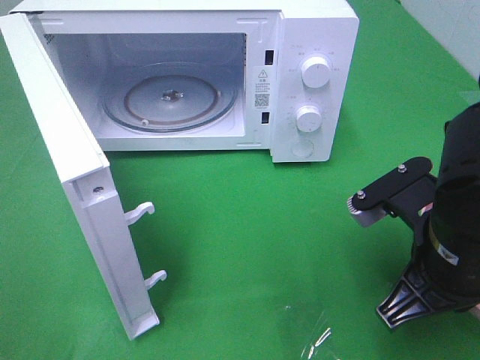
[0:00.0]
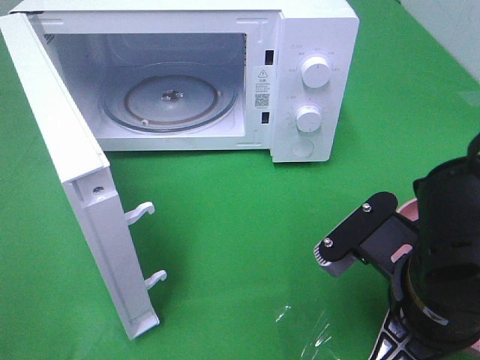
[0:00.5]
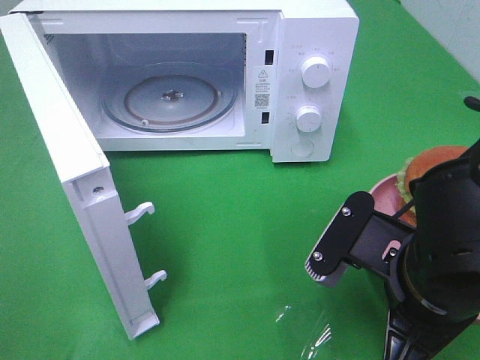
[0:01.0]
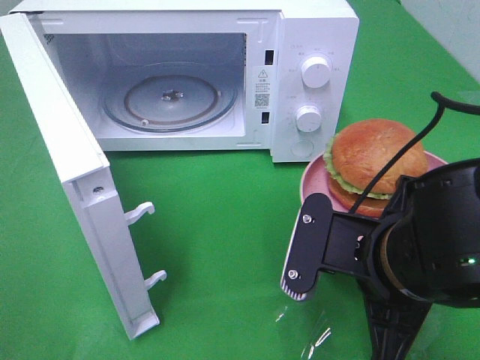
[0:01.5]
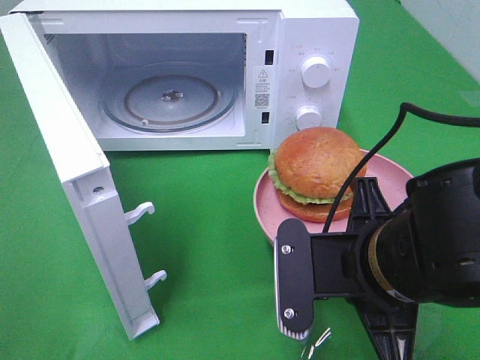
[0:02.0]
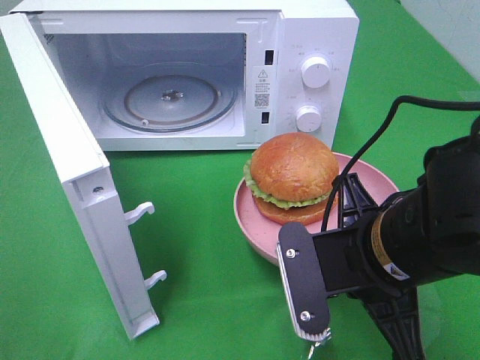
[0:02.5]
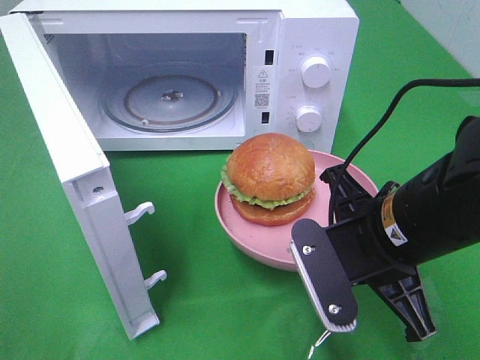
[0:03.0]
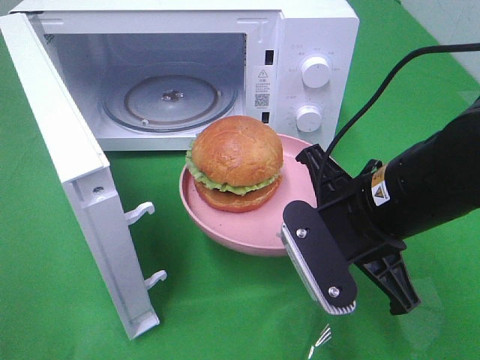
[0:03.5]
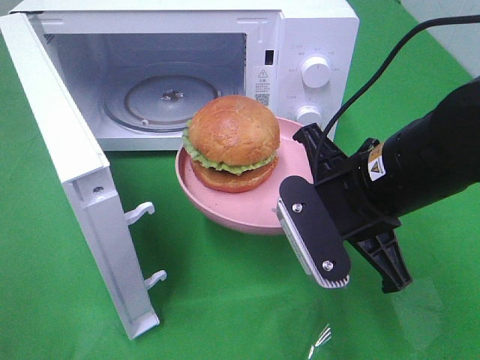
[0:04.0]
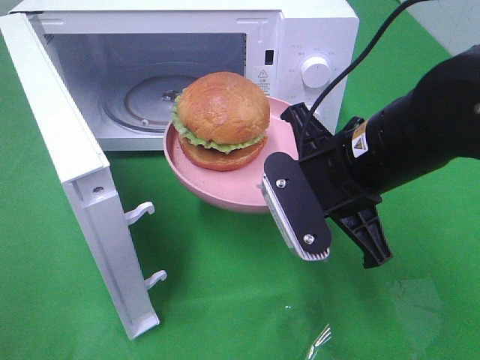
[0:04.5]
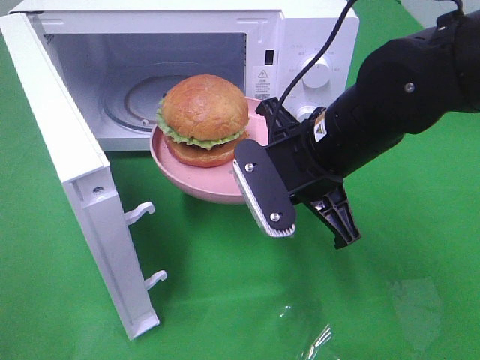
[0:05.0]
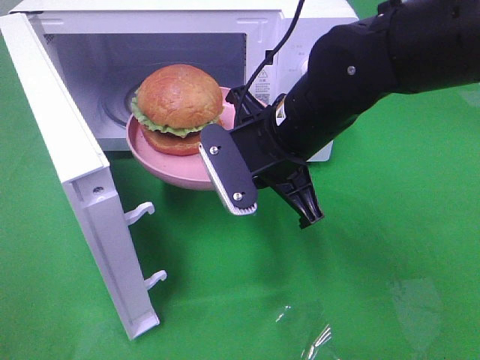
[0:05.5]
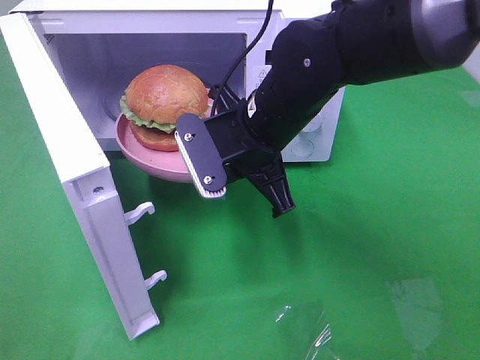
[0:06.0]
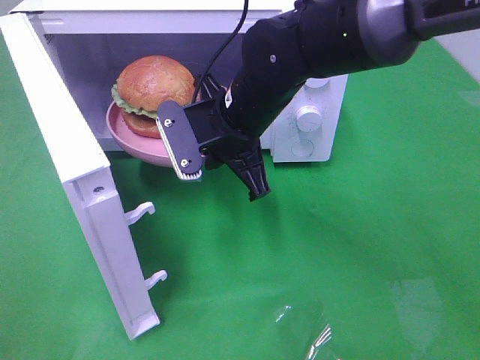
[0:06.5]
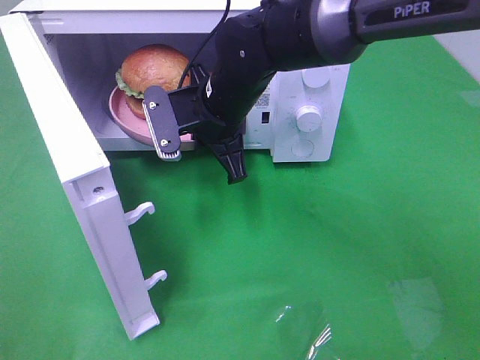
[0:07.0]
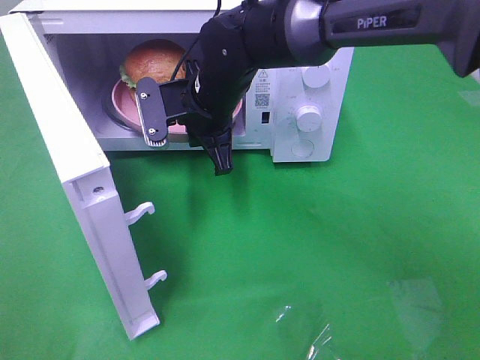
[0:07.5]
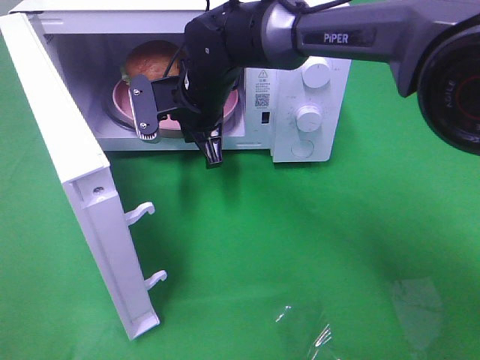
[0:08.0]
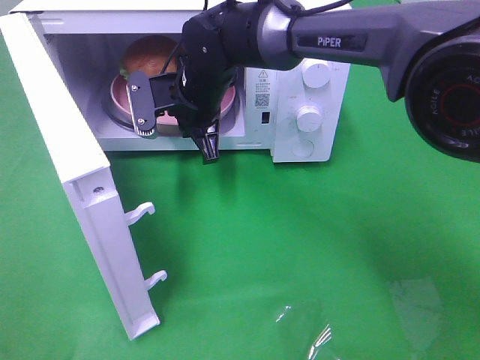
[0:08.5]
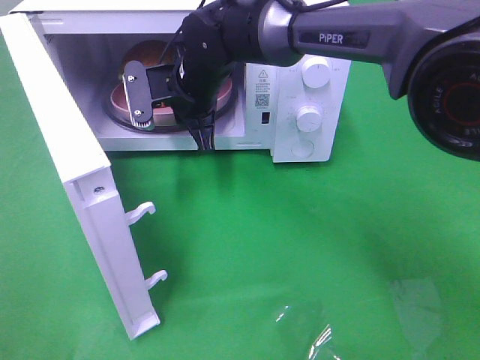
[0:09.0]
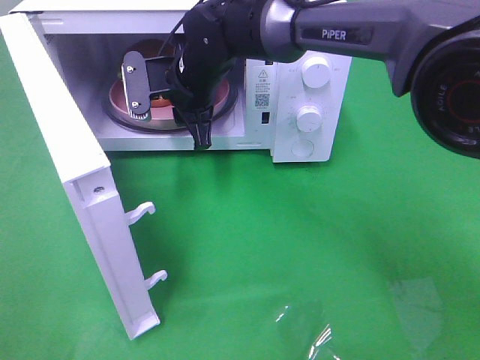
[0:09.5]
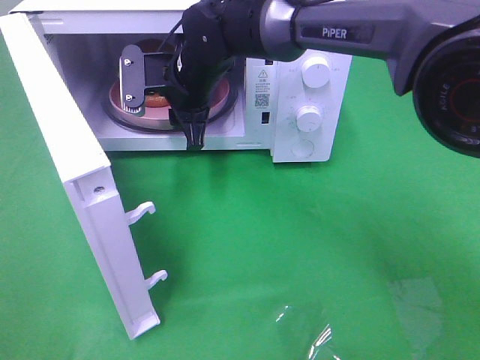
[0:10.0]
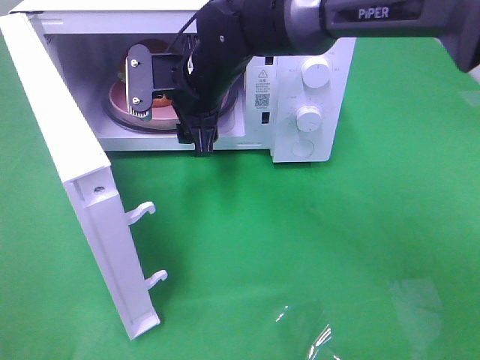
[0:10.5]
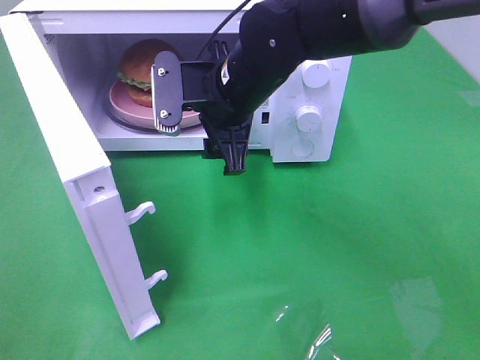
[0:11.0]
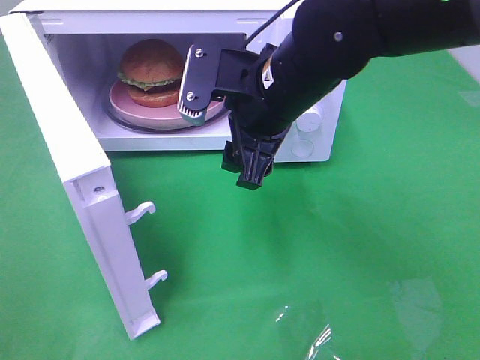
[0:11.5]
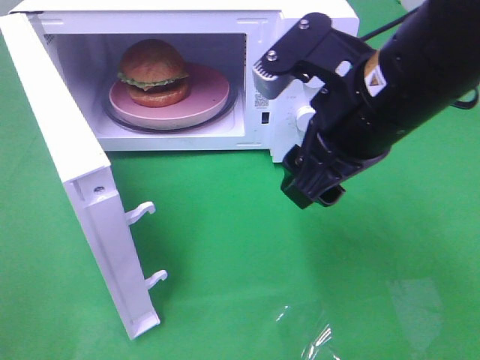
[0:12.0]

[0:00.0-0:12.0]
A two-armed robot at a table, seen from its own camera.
Task of the whole recording: Heat the burger.
Step, 0:00.0 to 0:10.0: Right hand: place the plate in the microwave.
0:00.0 to 0:02.0: The right gripper goes about 5 cm to the left.
0:02.0 to 0:04.0: The right gripper heads forward, covering about 5 cm.
0:04.0 to 0:06.0: The right gripper heads forward and to the left, covering about 15 cm.
0:06.0 to 0:08.0: The right gripper goes approximately 15 cm forward and to the left.
0:08.0 to 0:10.0: The right gripper opens its fingers.
0:10.0 to 0:12.0: The right gripper travels backward, to the right and upward by some 25 cm.

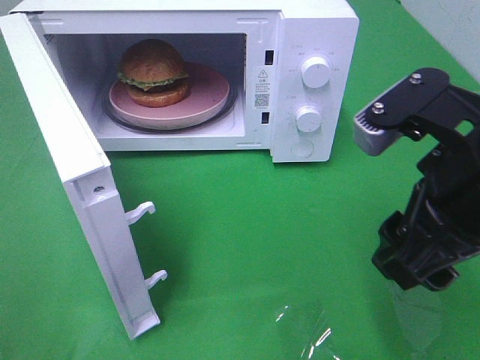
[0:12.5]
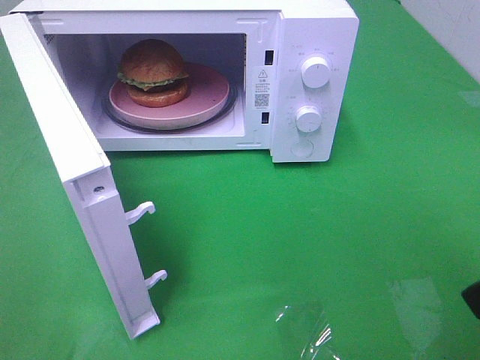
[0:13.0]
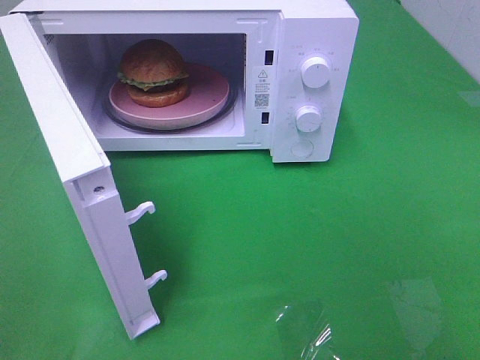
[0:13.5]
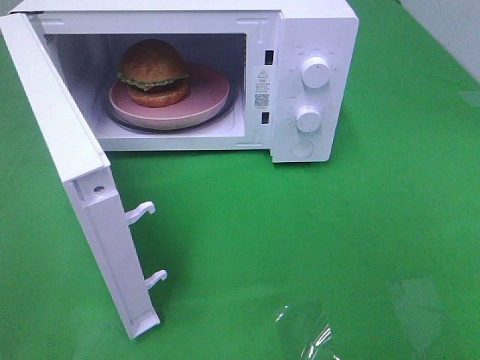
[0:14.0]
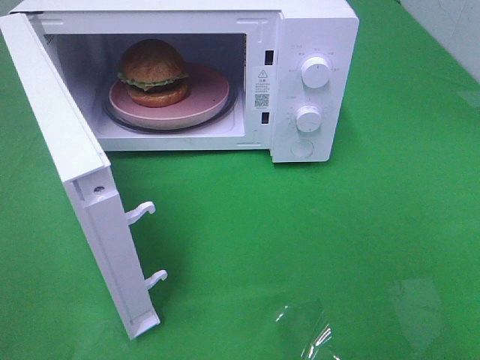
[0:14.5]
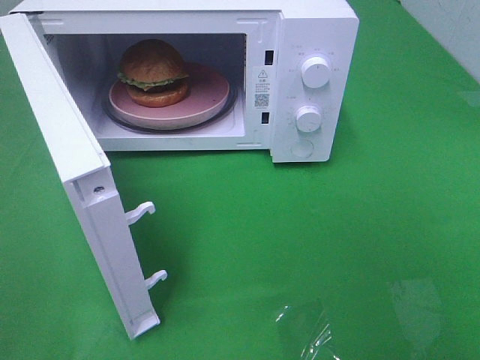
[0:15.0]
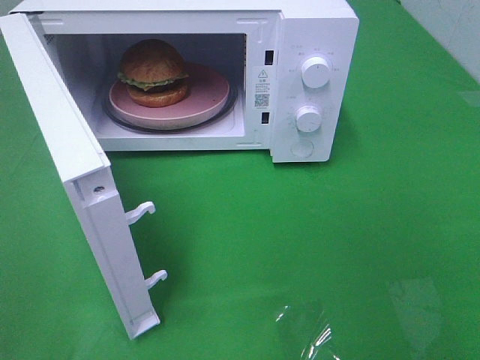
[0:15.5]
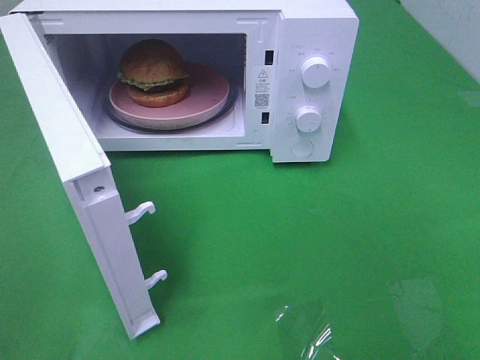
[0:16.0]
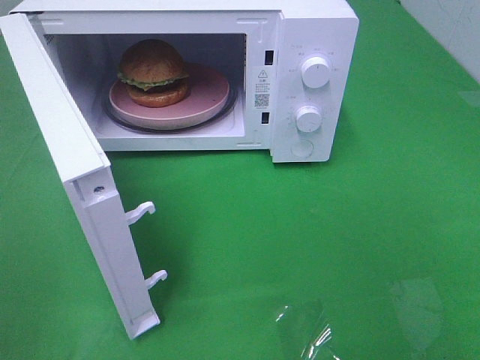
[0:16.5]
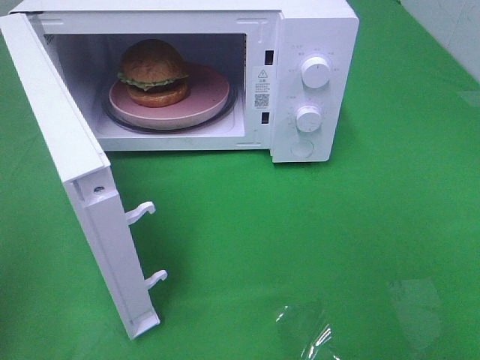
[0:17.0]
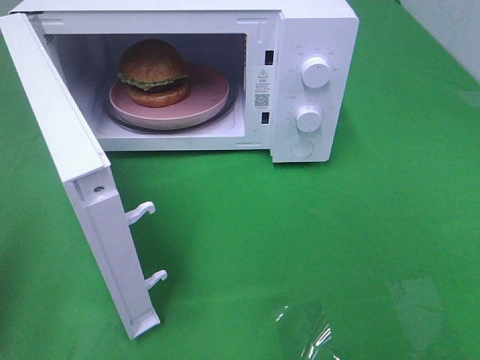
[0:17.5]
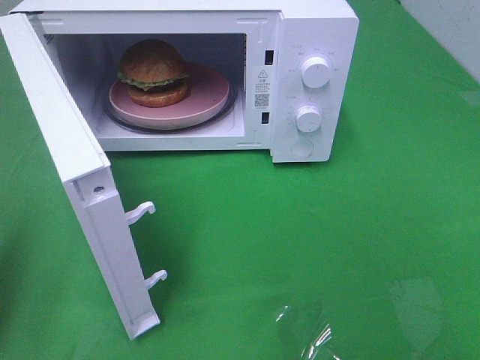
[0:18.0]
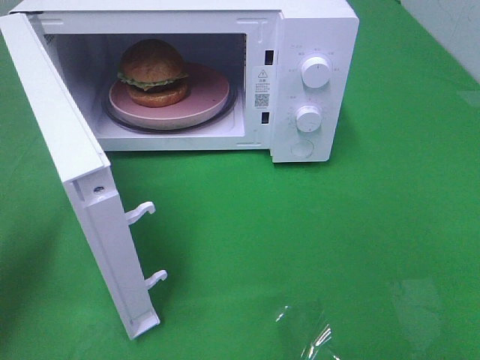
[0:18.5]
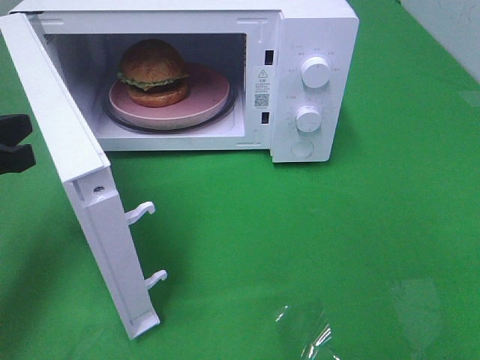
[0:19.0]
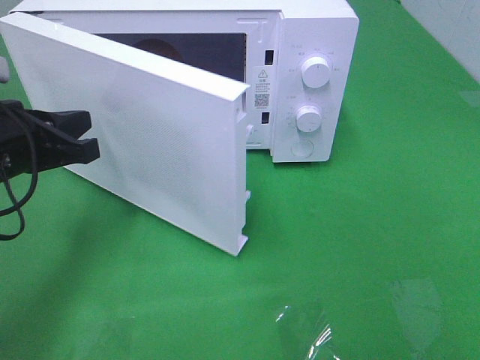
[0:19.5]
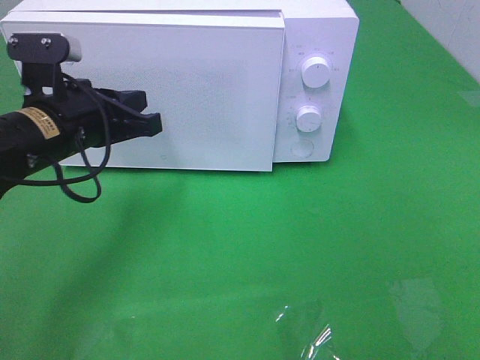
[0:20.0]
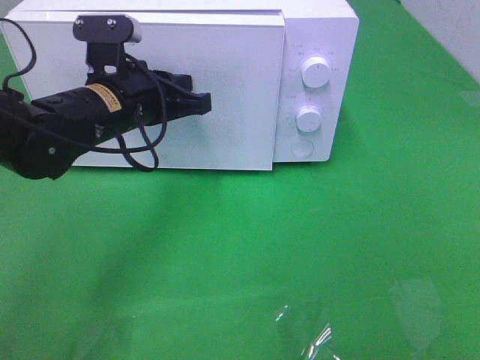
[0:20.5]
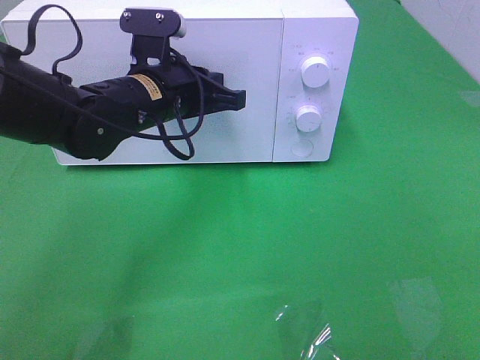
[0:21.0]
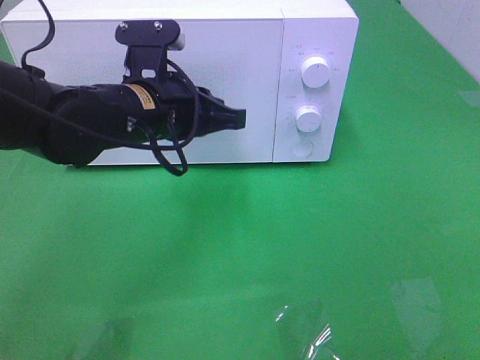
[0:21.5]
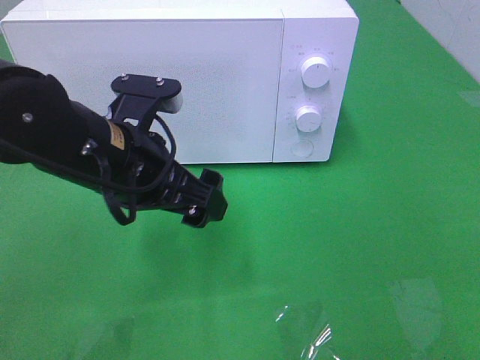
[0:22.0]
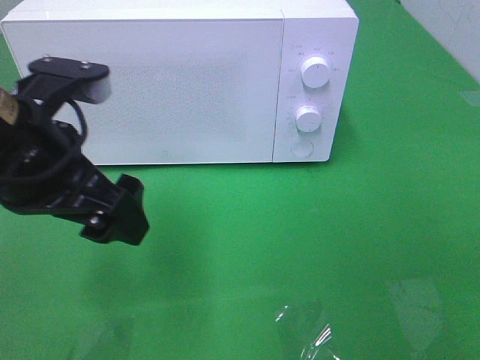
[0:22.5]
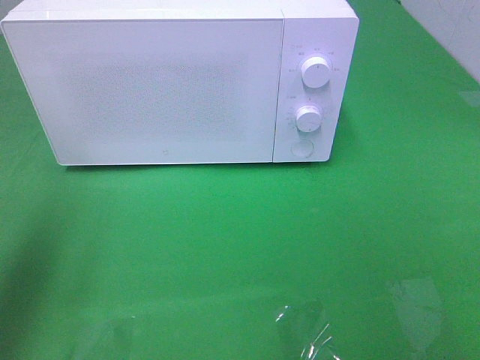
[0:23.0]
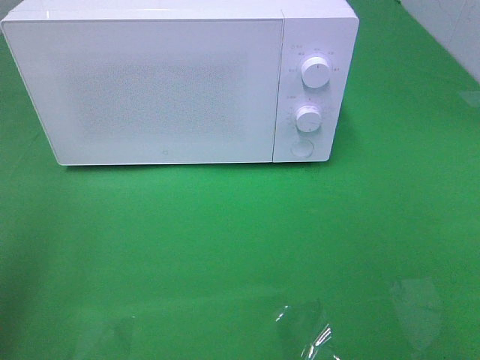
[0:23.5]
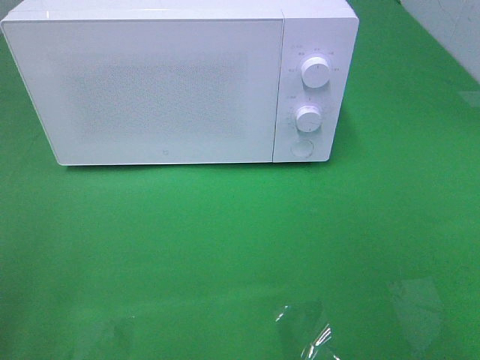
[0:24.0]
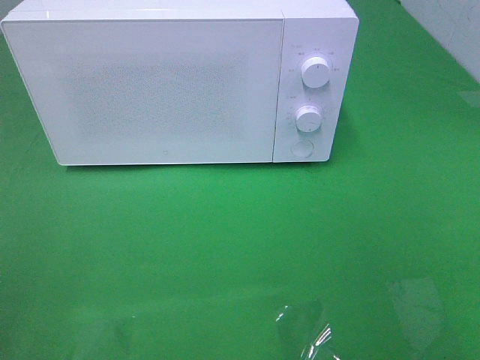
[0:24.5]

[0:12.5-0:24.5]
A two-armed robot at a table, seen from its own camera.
Task of the whole recording: Heat the burger.
Step, 0:12.5 to 0:21.5: Left hand: close the microwave door.
0:12.5 to 0:14.5: The right gripper shifts approximately 20 cm backward and to the right.
0:16.5 to 0:18.5: The left gripper heads forward and downward, covering roughly 20 cm, and closes up.
0:18.5 to 0:20.5: The left gripper is displaced to the right and forward by about 25 cm.
0:20.5 to 0:22.5: The left gripper moves backward and upward, roughly 15 cm, and opens.
0:22.5 to 0:24.5: The left gripper is displaced backward and to the left by about 25 cm.

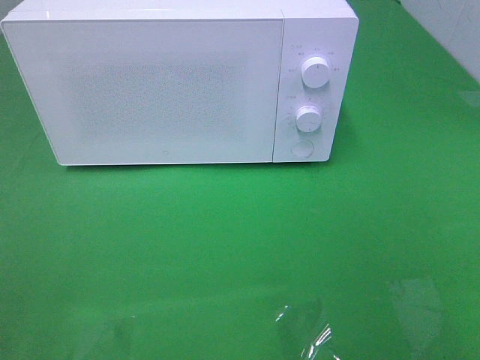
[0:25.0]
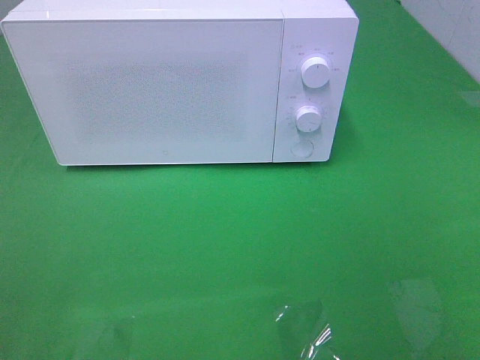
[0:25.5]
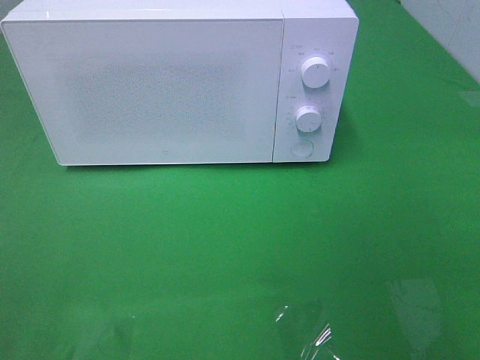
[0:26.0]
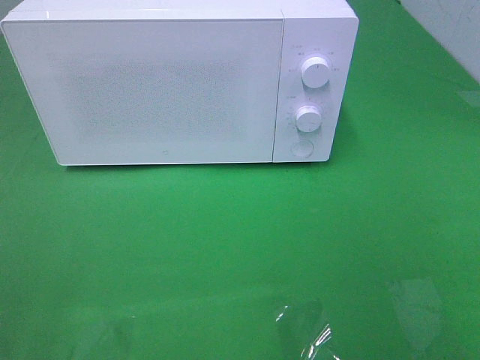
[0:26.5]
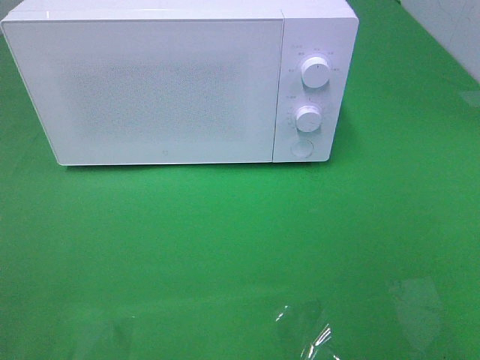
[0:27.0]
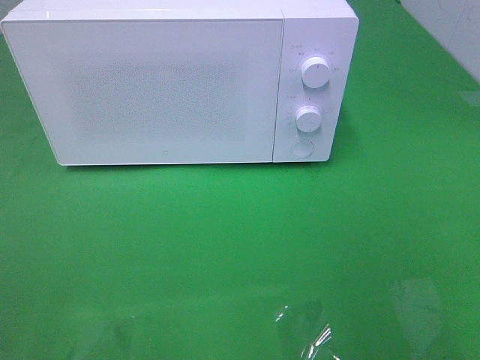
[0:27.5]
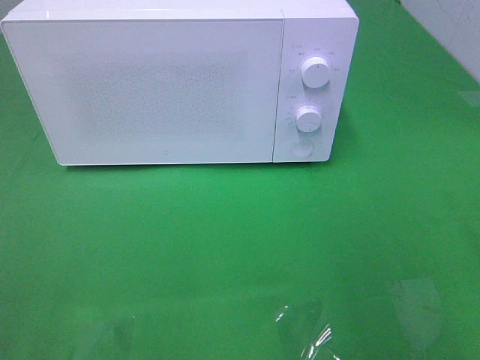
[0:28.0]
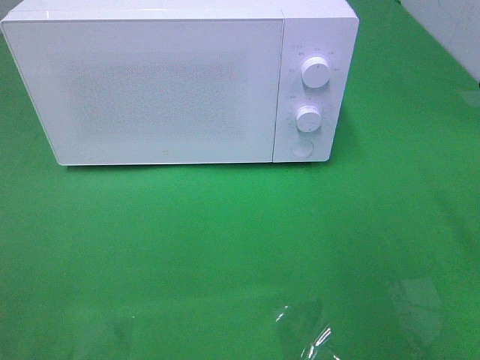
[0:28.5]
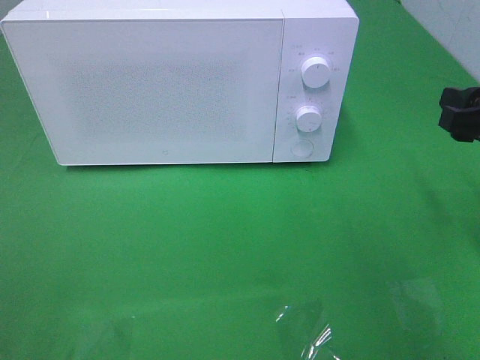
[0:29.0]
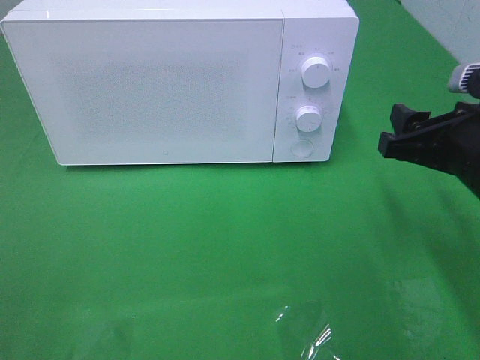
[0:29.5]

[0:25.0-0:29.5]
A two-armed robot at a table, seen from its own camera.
Task of the whole recording: Heat the burger.
0:27.0 to 0:29.5: The right gripper travels forward and downward by some 25 cm.